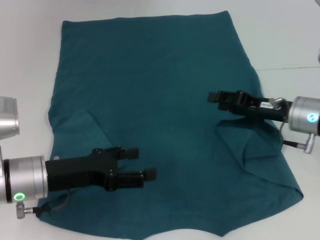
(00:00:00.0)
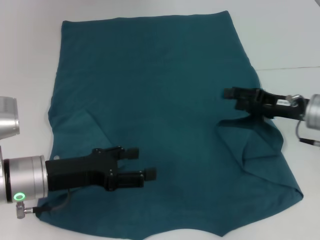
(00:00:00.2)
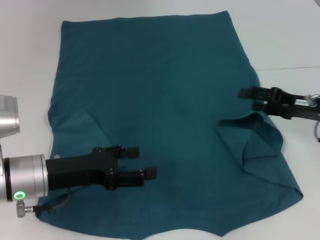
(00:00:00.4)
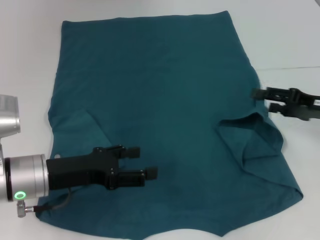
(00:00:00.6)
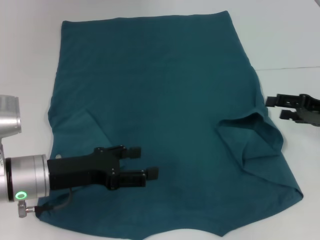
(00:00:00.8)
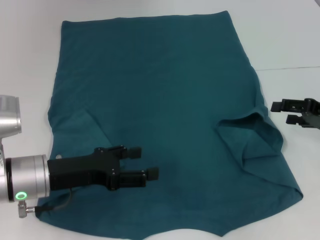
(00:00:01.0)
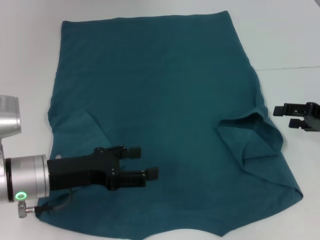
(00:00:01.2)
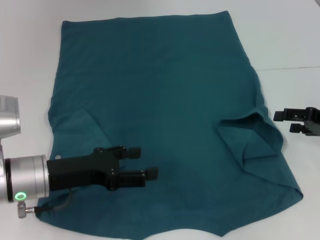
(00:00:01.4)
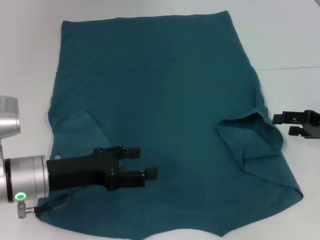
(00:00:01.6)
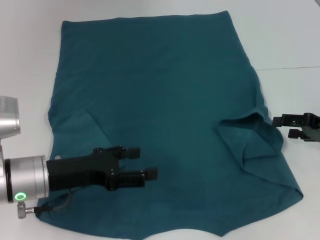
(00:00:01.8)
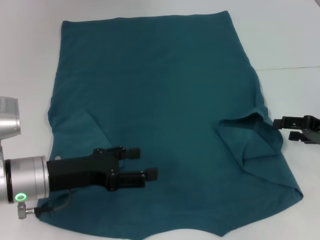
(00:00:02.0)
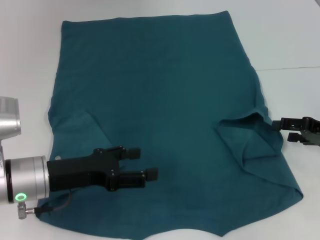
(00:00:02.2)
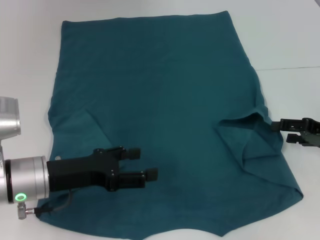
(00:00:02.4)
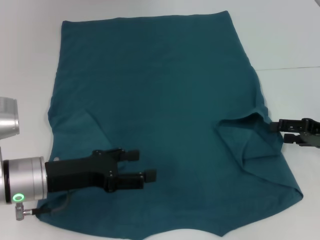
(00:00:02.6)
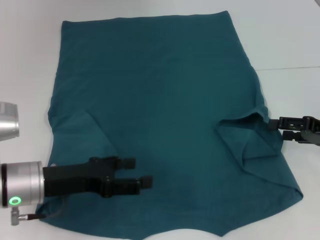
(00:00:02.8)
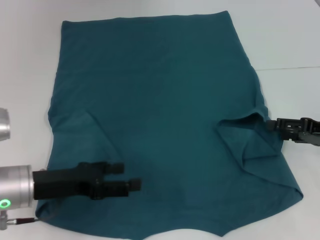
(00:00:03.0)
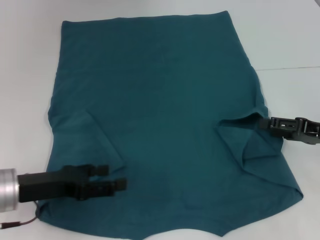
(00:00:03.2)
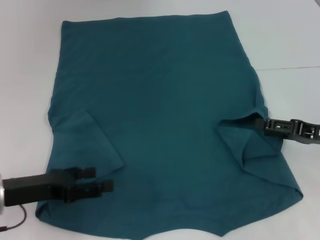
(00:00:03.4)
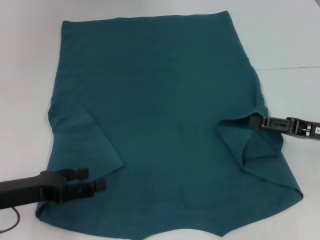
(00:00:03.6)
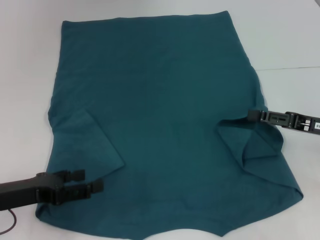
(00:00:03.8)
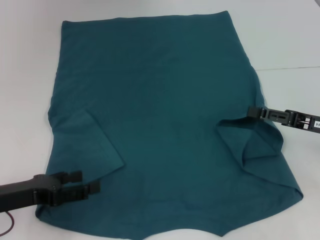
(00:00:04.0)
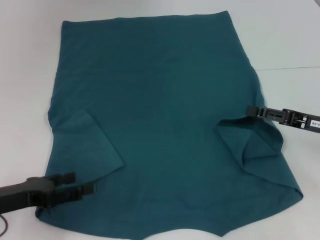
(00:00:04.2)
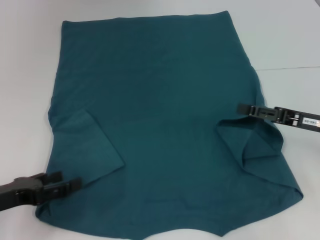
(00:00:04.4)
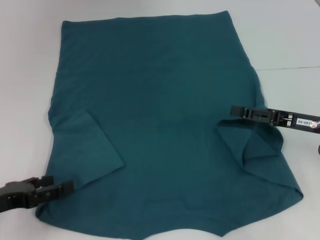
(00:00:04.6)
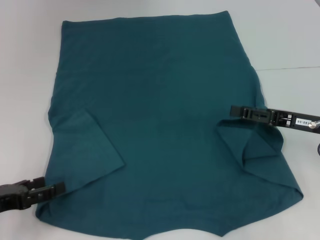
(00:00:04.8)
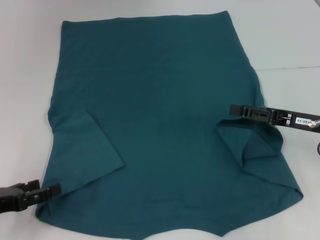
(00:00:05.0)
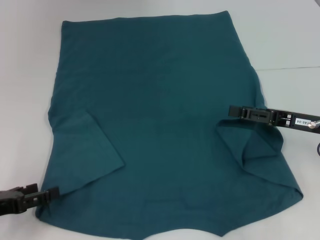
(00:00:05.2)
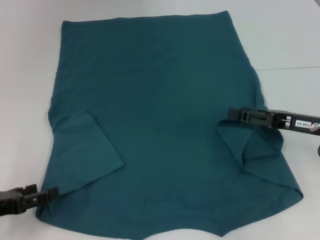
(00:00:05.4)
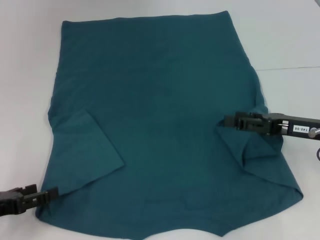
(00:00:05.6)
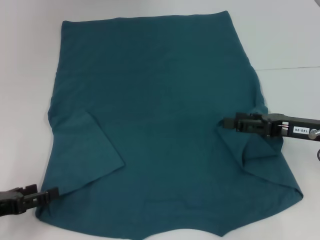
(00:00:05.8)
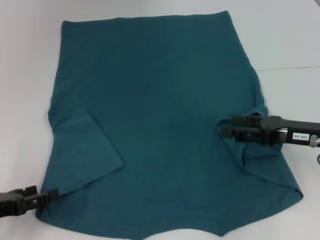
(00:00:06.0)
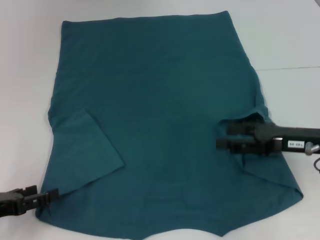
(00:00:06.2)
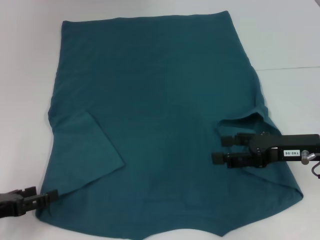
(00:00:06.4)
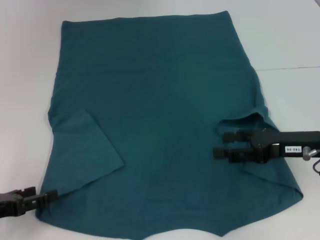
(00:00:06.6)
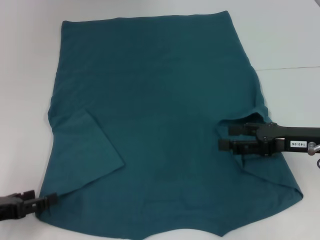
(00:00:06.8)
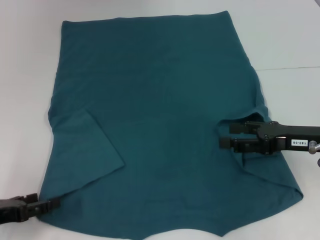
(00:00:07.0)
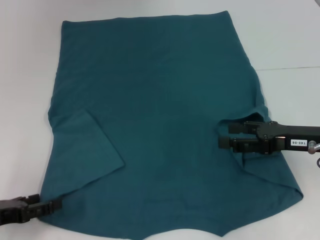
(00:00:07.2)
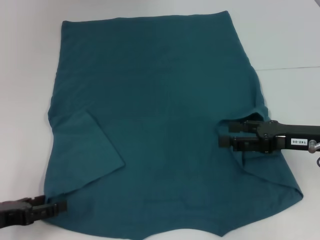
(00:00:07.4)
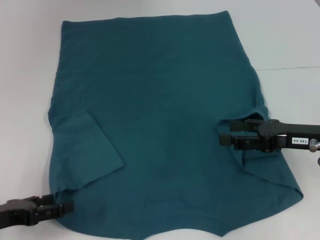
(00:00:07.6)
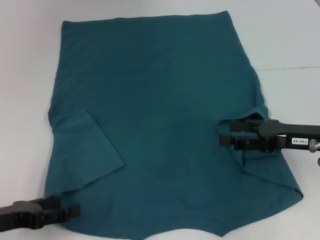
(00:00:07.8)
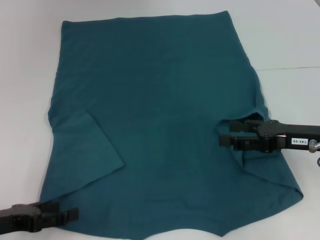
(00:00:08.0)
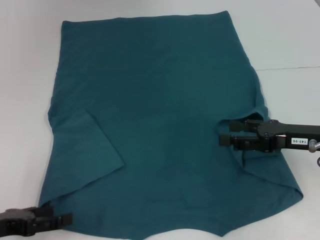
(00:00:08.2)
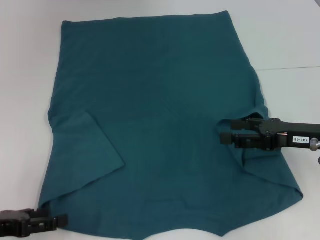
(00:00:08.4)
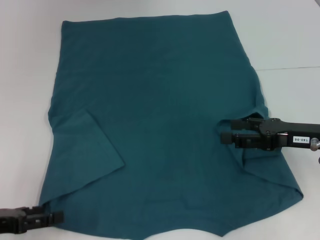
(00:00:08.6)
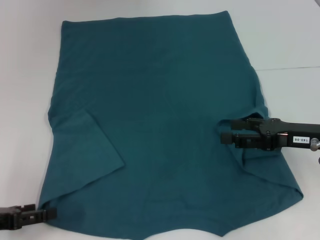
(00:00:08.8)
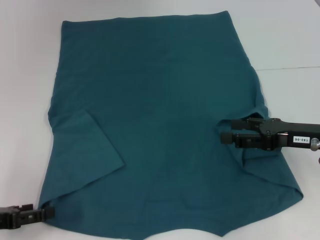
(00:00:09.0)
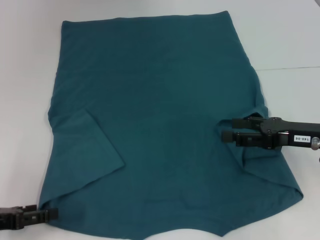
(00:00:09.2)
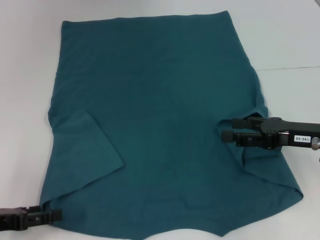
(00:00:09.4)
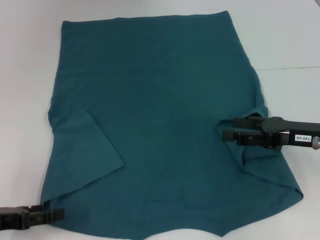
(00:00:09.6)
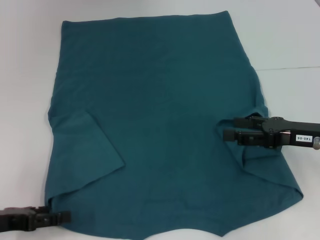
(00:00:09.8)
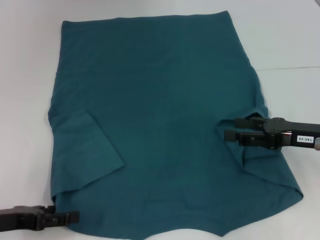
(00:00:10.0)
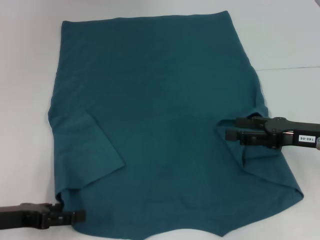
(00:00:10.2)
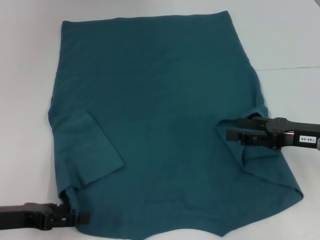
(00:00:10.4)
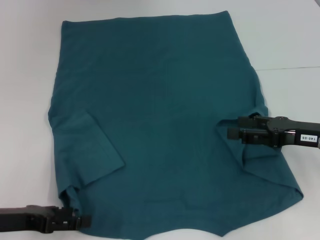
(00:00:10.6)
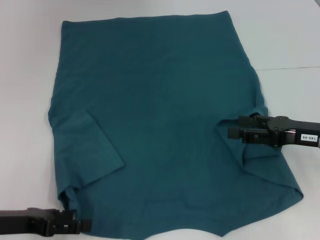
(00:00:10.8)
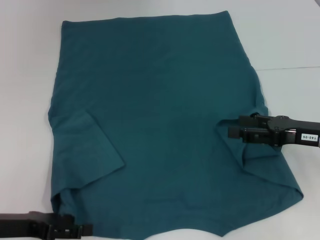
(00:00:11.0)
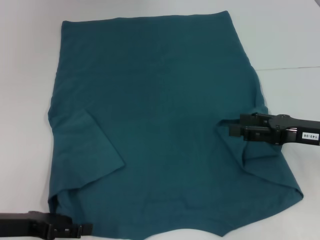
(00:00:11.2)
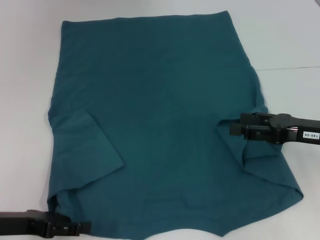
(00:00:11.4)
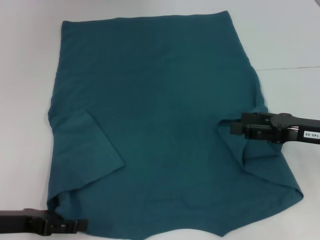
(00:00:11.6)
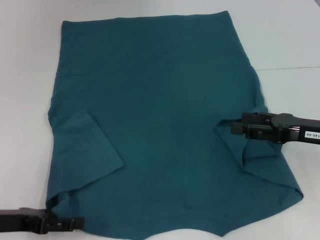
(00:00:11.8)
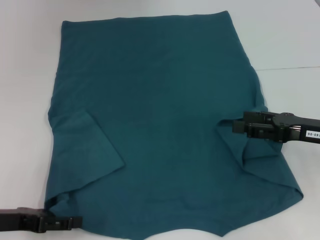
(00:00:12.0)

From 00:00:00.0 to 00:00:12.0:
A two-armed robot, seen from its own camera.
From 00:00:00.0 to 00:00:01.6: The right gripper heads to the right, covering some 10 cm, and opens its fingers.
From 00:00:01.6 to 00:00:03.0: The grippers move only a little.
From 00:00:03.0 to 00:00:04.4: The left gripper is displaced to the left by approximately 10 cm.
From 00:00:04.4 to 00:00:06.0: The grippers stay close to where they were, moving slightly.
From 00:00:06.0 to 00:00:10.4: There are only small adjustments of the grippers.
From 00:00:10.4 to 00:00:12.0: The grippers make only small movements.

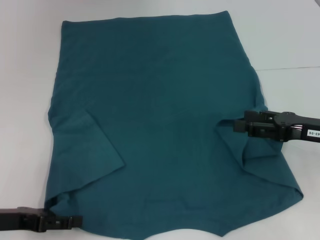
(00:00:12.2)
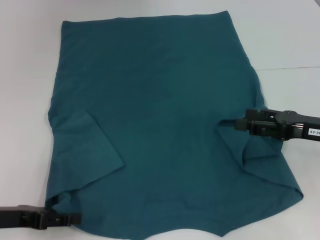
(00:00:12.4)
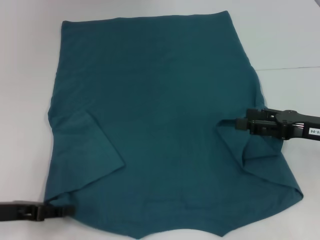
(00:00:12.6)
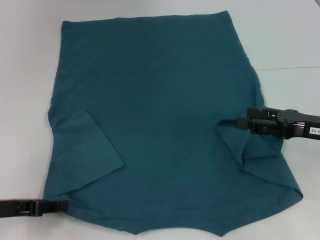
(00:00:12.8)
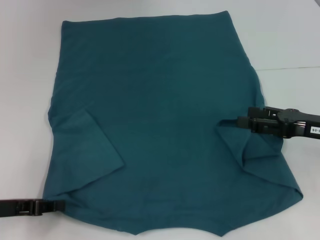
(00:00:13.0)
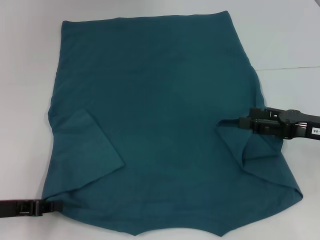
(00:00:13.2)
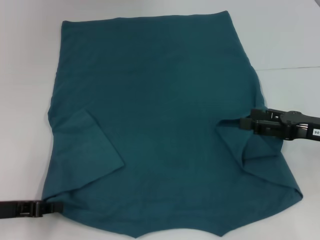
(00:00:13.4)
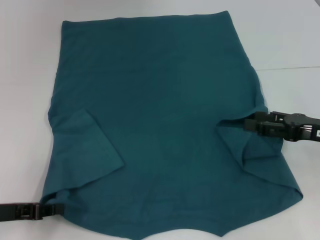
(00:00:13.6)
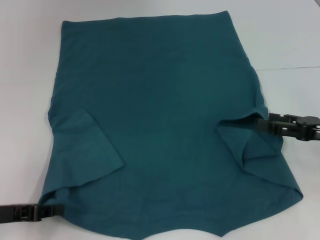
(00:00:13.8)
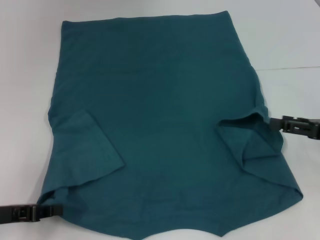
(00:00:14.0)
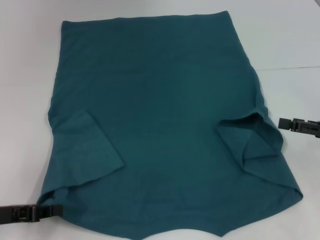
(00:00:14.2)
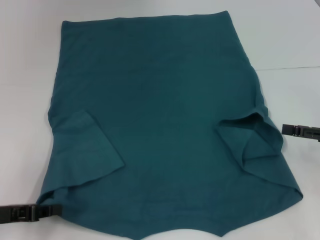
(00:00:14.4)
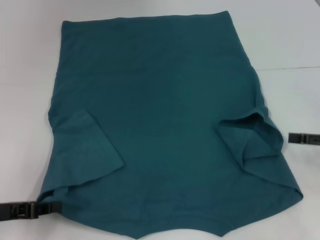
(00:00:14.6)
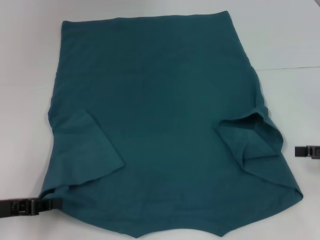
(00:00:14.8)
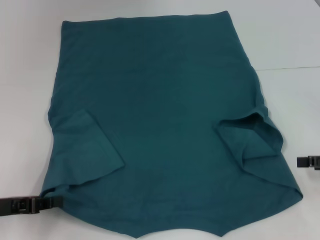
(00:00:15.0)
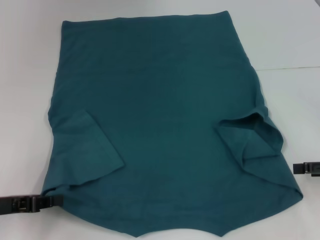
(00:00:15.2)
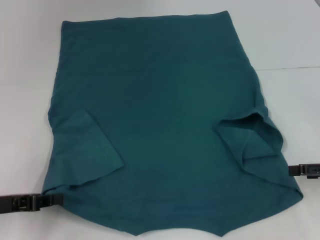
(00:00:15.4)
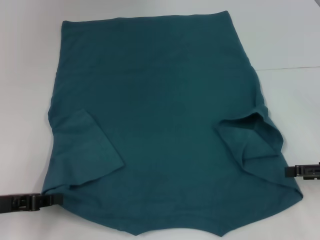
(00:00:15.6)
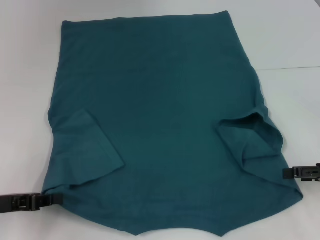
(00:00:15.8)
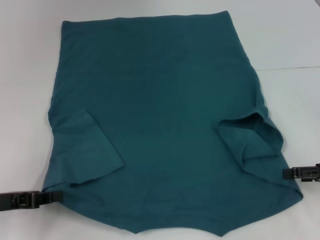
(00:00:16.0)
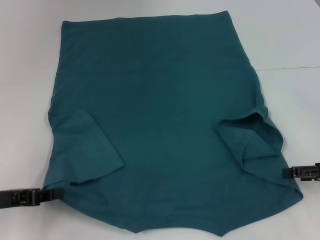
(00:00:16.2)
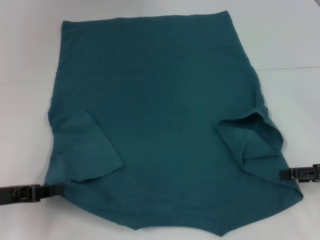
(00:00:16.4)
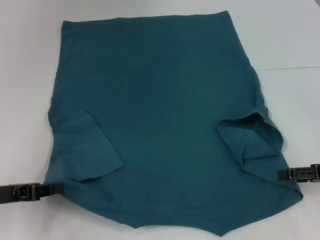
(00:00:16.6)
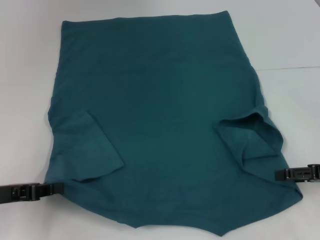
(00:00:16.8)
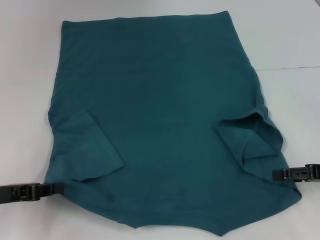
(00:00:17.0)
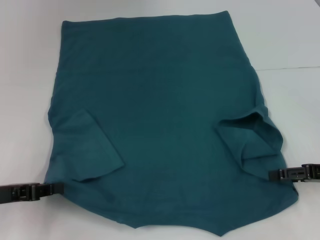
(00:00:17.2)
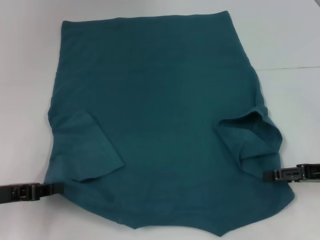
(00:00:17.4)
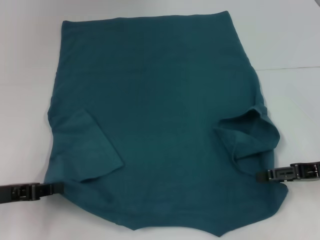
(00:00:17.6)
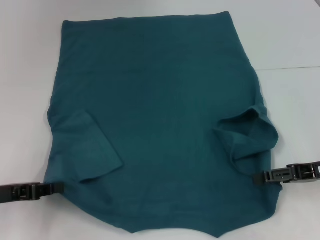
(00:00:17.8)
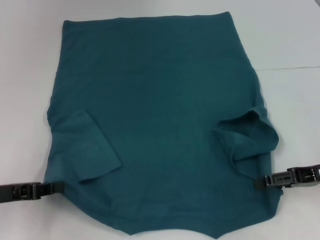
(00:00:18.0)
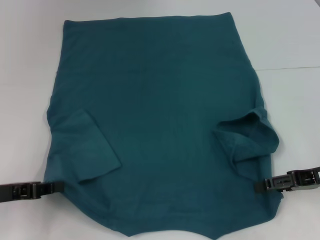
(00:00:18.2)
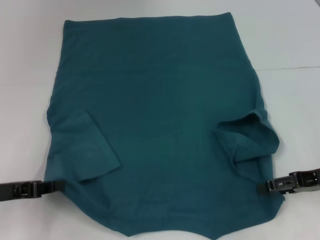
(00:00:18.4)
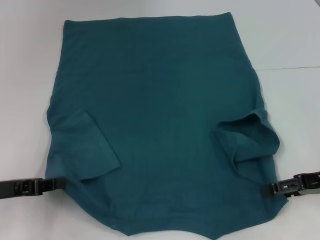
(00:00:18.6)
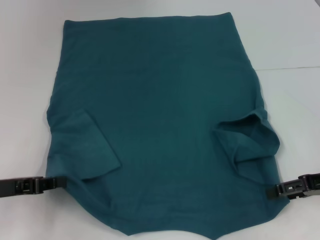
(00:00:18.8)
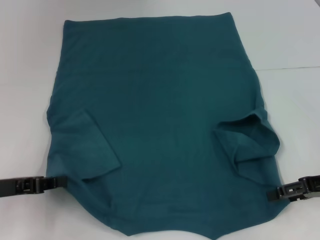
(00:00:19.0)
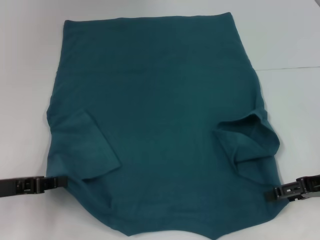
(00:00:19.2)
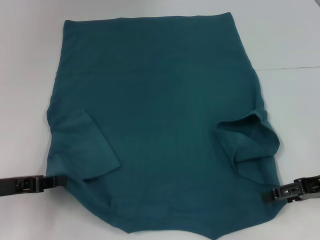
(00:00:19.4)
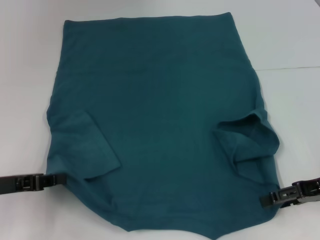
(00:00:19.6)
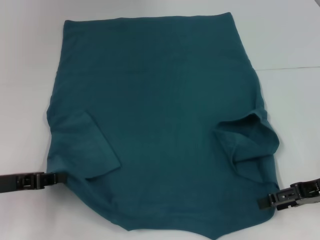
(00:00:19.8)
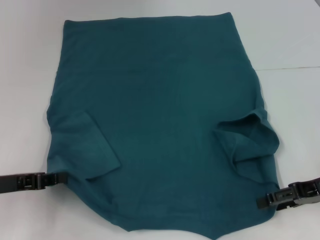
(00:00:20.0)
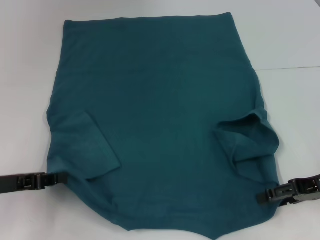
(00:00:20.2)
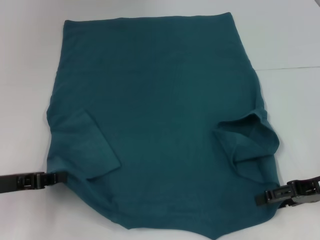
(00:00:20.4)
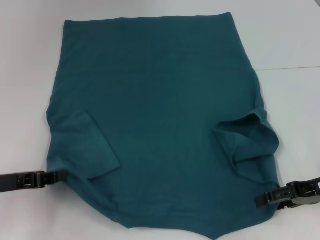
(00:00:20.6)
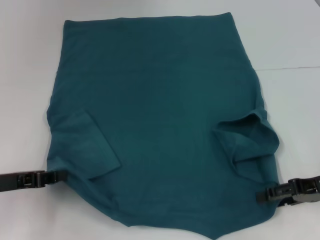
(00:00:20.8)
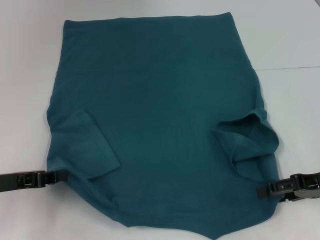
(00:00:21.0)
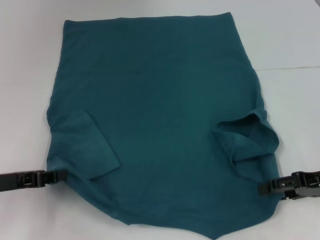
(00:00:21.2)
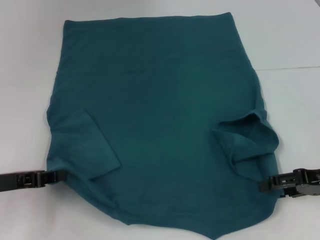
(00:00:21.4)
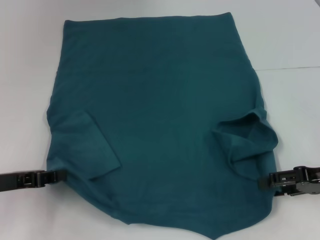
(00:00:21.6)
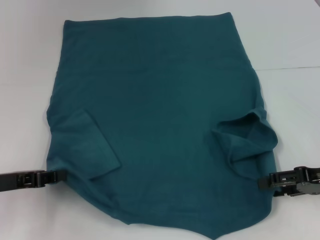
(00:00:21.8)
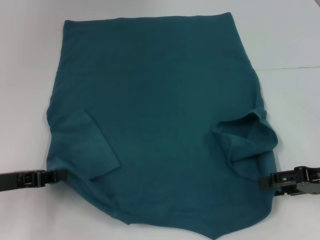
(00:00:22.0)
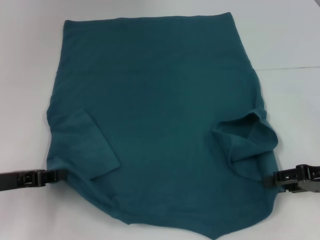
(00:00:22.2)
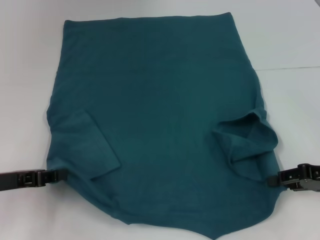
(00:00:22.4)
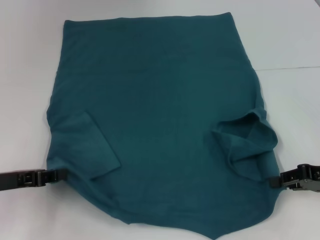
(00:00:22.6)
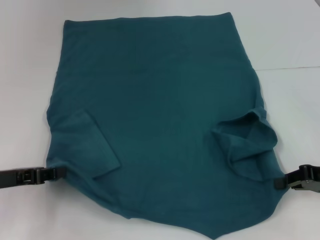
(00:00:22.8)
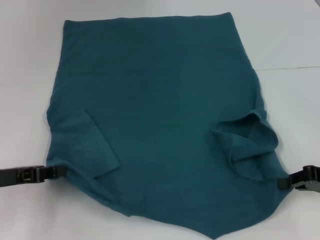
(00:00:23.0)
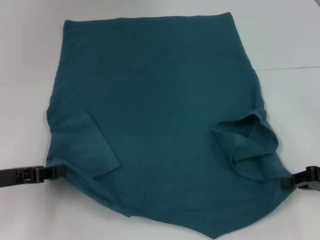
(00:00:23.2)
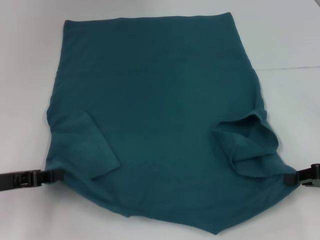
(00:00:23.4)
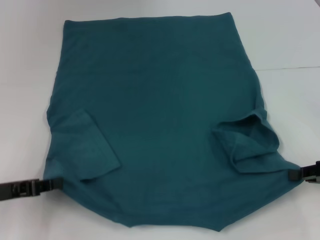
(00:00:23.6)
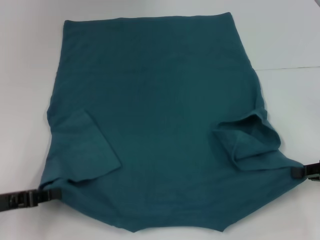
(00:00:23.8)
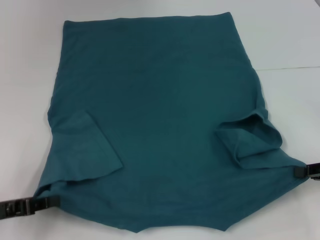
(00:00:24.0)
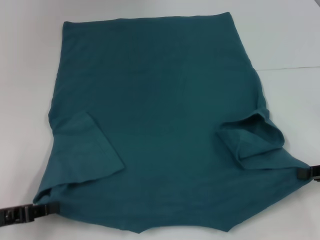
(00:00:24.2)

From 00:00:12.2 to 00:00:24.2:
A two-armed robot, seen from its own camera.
Step, from 00:00:14.0 to 00:00:22.8: Grab the bottom right corner with your right hand.
From 00:00:12.2 to 00:00:13.8: The left gripper closes.
From 00:00:13.8 to 00:00:15.2: The right gripper moves approximately 5 cm.
From 00:00:15.2 to 00:00:16.6: The grippers make only small movements.
From 00:00:16.6 to 00:00:21.2: The grippers make only small movements.
From 00:00:21.2 to 00:00:22.6: The right gripper closes.
From 00:00:22.6 to 00:00:24.2: The left gripper ends up some 5 cm from where it was, while the right gripper closes its fingers.
